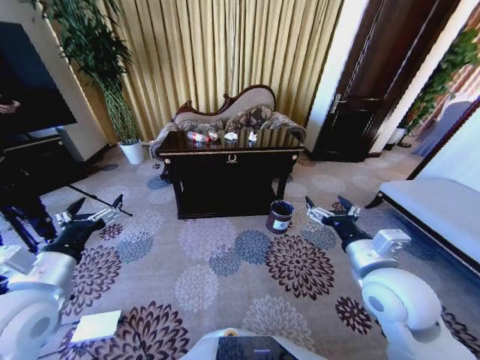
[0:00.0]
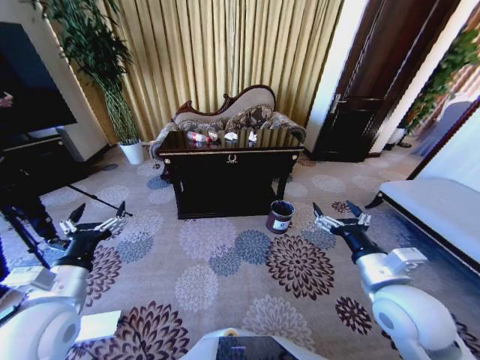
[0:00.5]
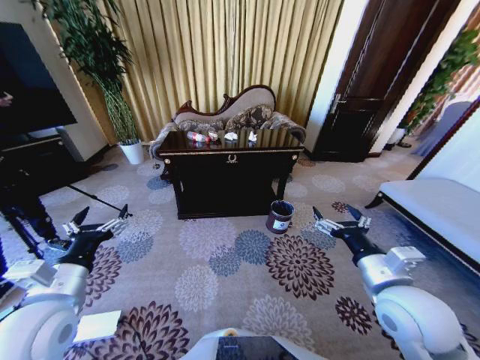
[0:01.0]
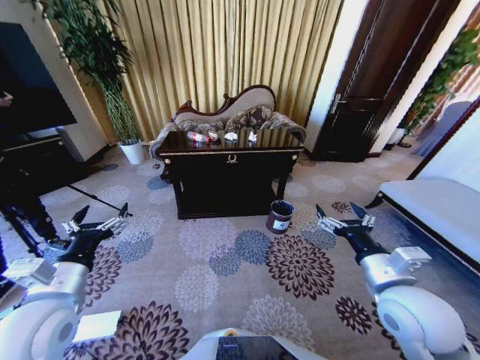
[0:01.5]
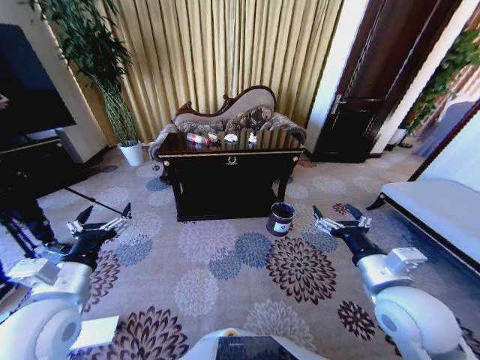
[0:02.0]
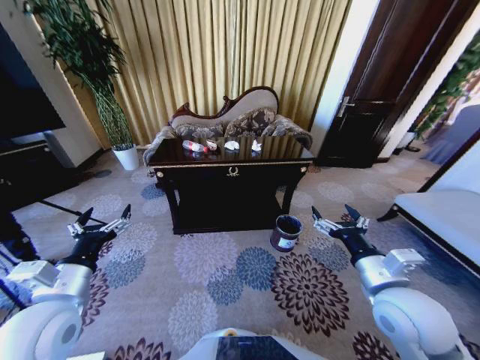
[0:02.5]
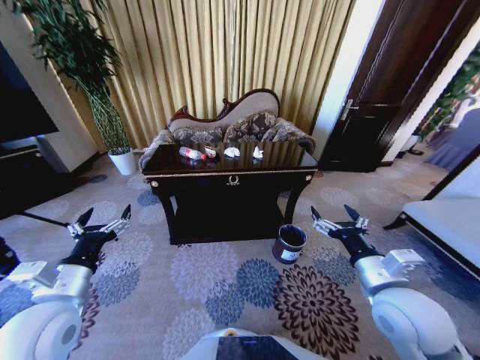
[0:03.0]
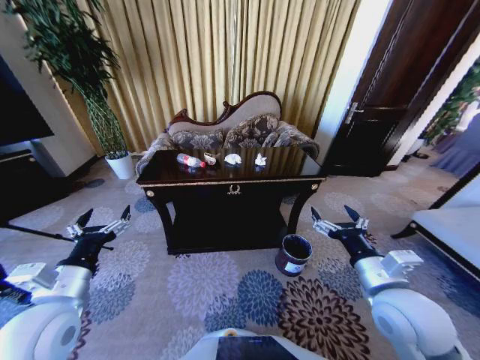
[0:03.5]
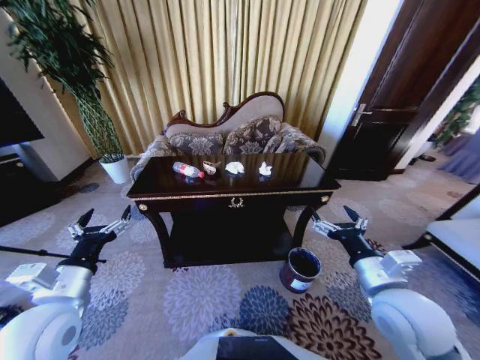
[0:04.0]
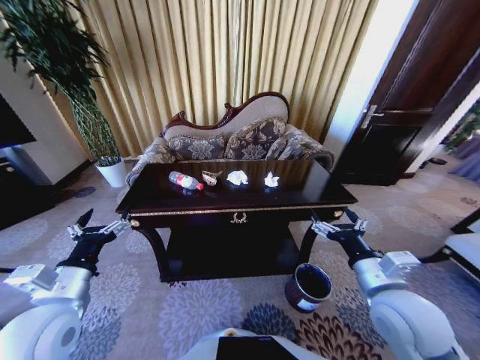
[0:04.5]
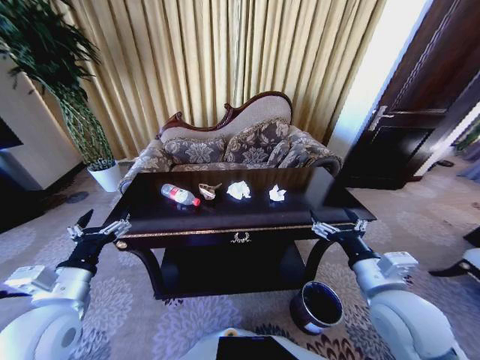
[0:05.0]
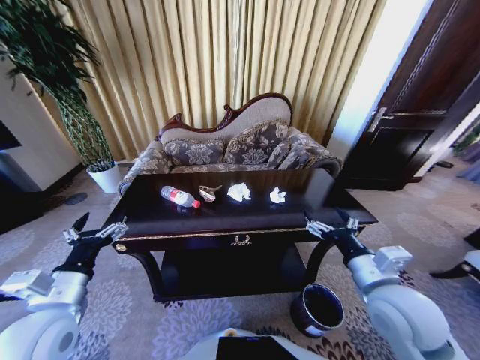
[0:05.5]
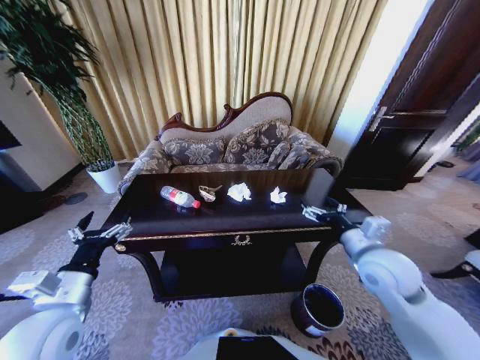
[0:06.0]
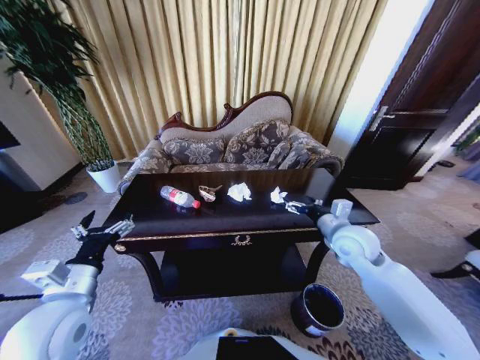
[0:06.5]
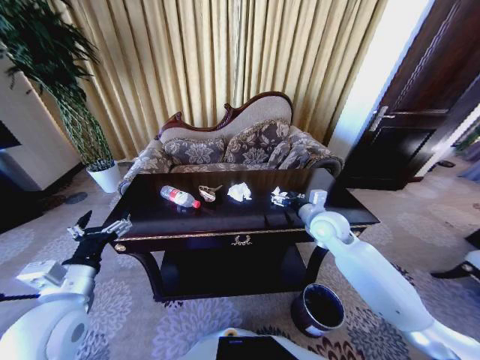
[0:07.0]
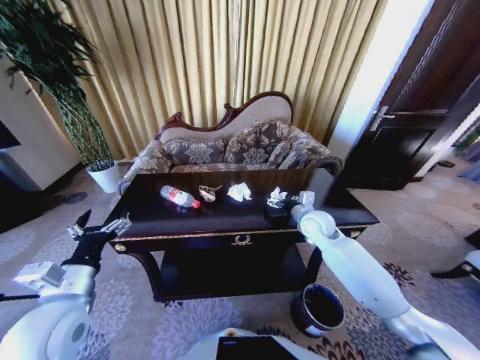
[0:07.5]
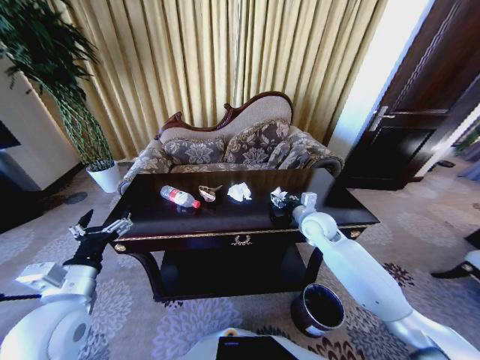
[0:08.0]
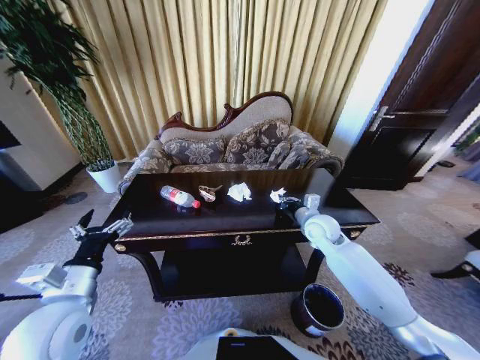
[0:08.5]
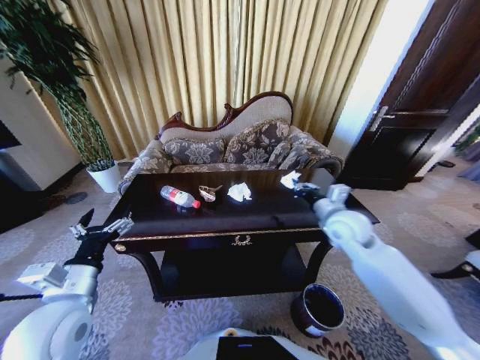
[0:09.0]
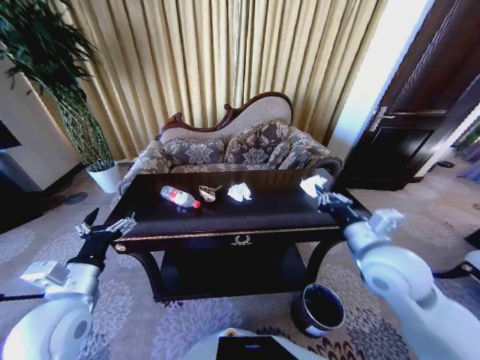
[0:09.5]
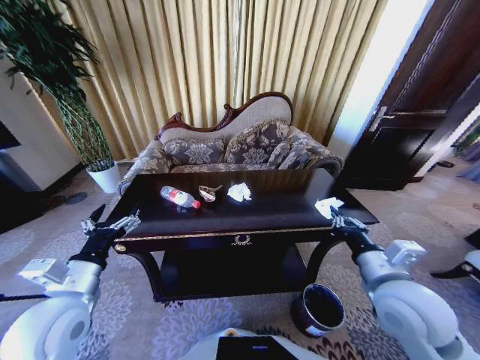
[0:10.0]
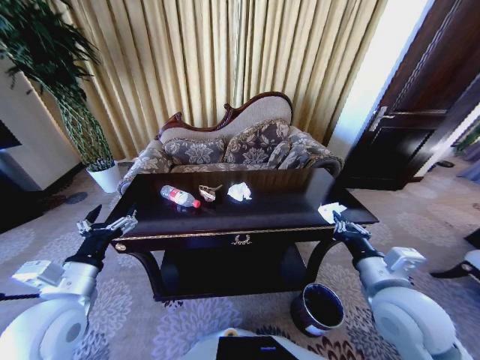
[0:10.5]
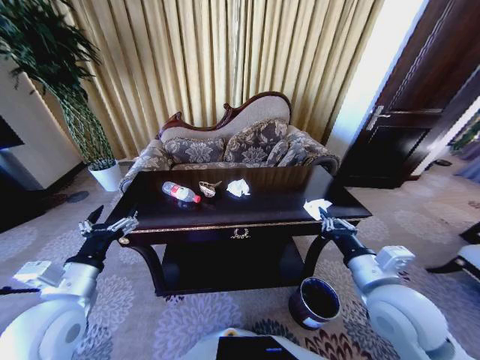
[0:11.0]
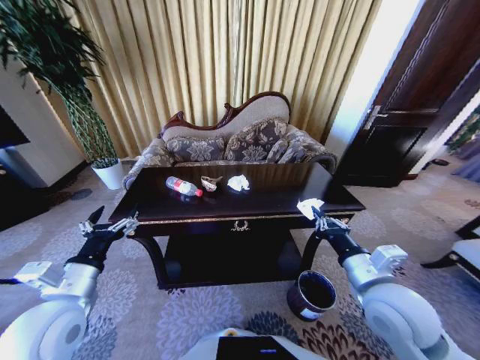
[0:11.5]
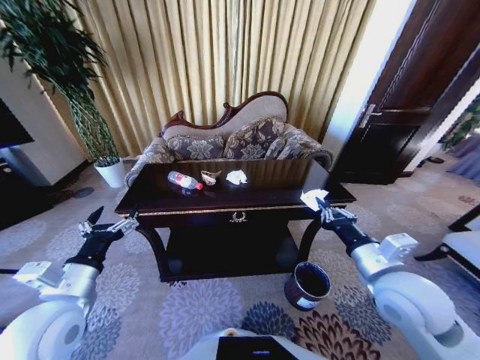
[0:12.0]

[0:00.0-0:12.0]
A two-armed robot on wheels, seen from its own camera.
Task of the whole recording: Move to the front of the table and place the trash on the table into the trash bin.
0:04.0 to 0:06.0: The right gripper goes roughly 10 cm forward.
0:06.0 to 0:08.0: The right gripper moves forward, roughly 15 cm, and closes its fingers.
0:08.0 to 0:10.0: The right gripper travels backward by approximately 25 cm, and closes up.

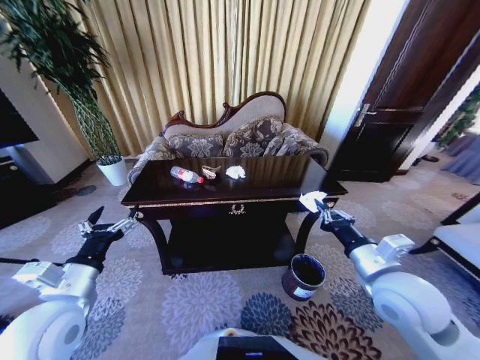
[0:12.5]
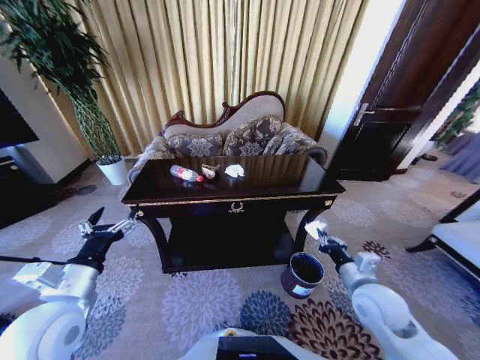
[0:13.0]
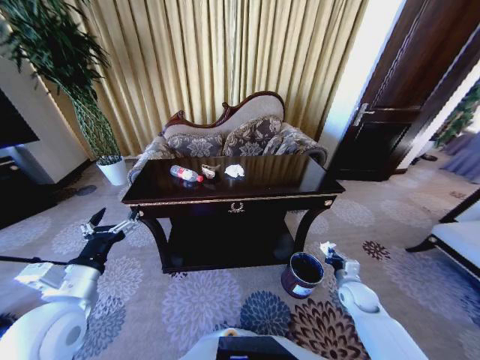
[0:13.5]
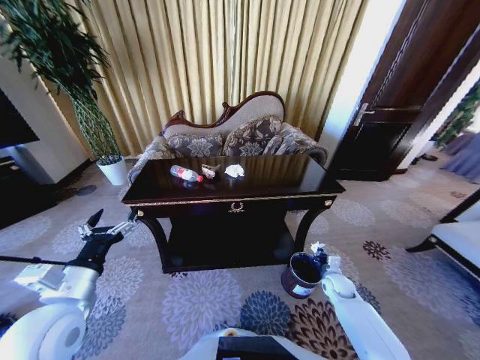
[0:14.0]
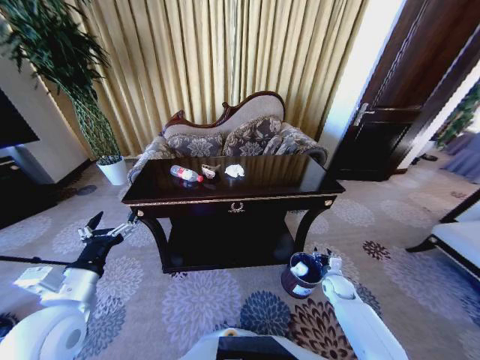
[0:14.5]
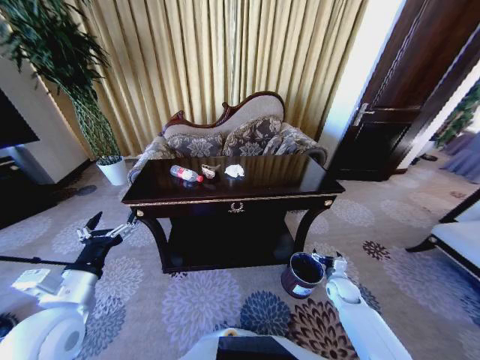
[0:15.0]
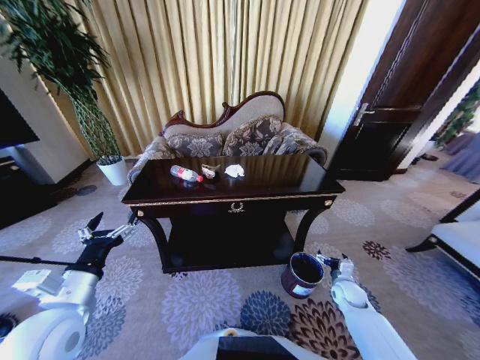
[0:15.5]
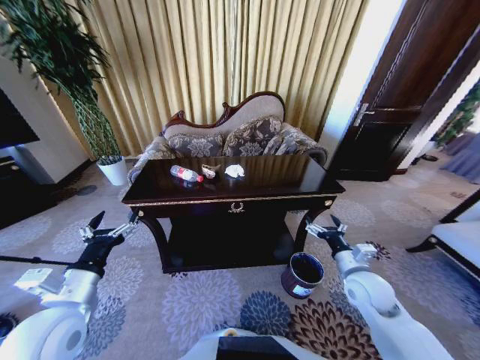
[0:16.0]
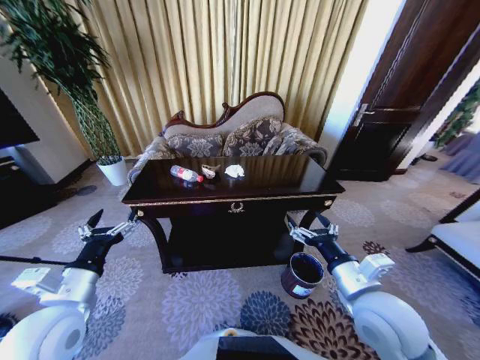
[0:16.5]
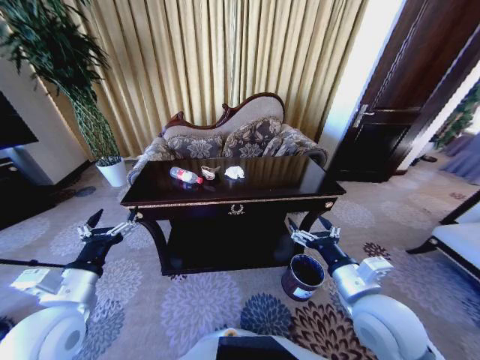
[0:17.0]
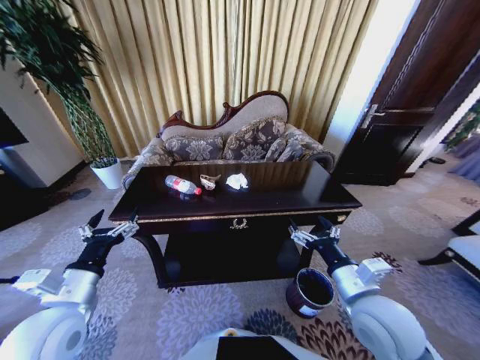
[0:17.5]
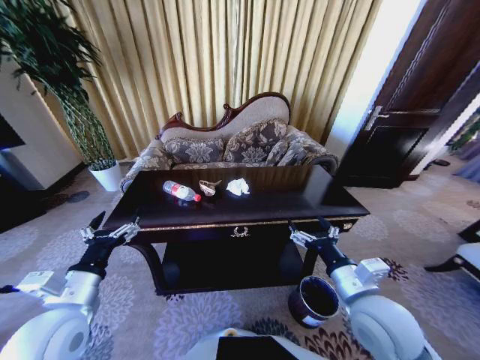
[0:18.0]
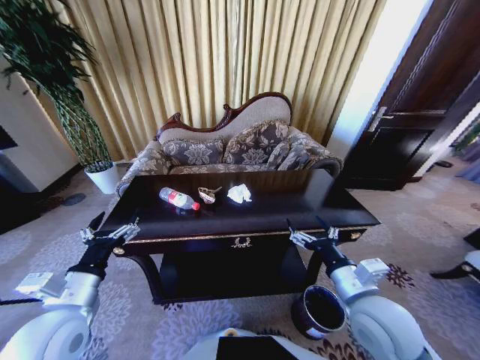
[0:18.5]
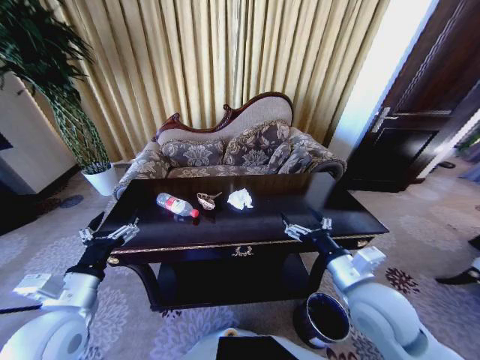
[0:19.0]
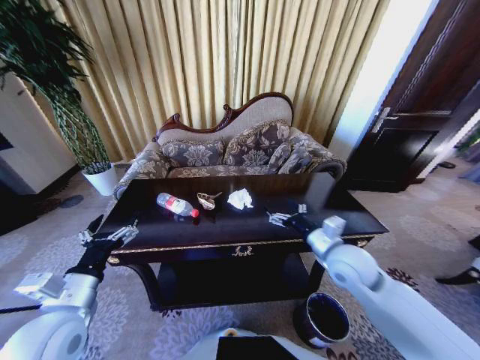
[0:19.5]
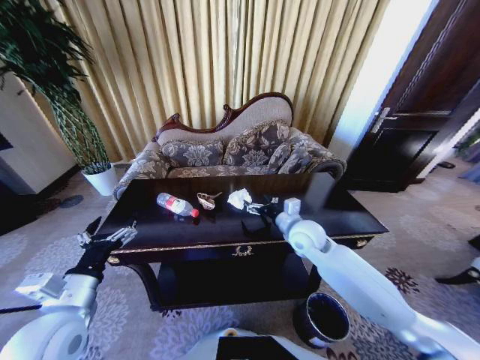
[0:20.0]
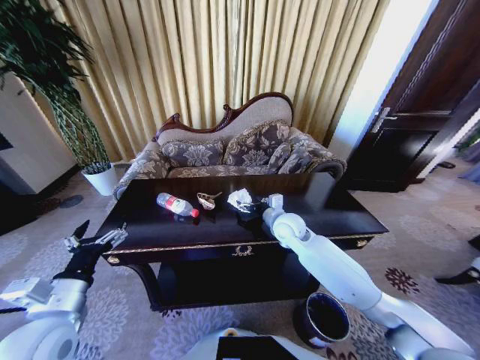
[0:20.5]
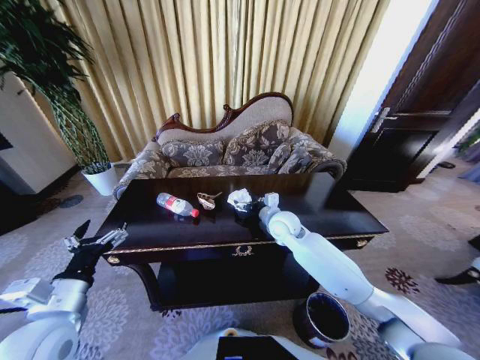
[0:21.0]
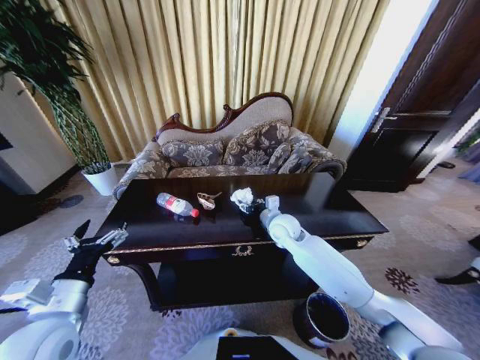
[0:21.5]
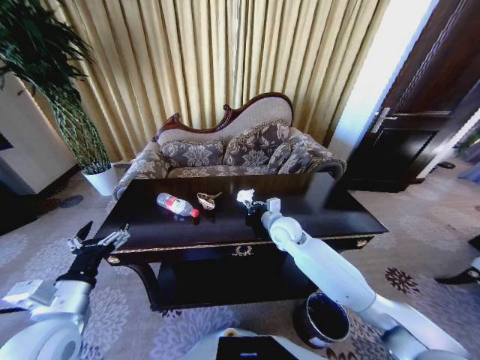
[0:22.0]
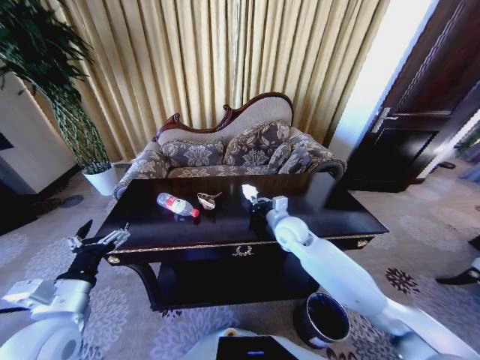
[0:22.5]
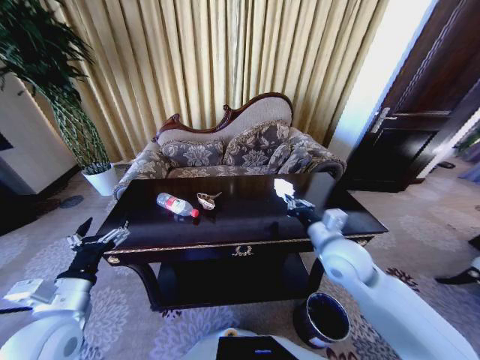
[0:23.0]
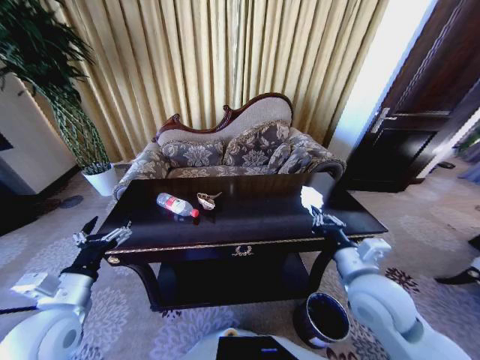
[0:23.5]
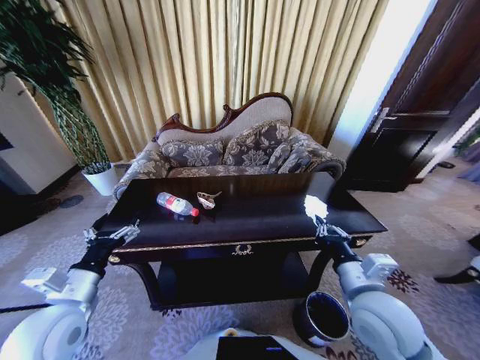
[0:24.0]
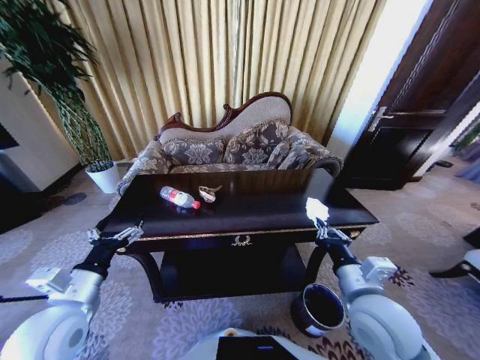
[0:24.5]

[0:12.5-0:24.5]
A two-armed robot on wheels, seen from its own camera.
Task of the whole recording: Move to the front of the table and place the trash on the table into the trash bin.
0:12.5 to 0:14.5: The right gripper moves downward, about 30 cm, and opens.
0:14.5 to 0:16.5: The right gripper heads upward, backward and to the left, covering some 35 cm, and opens its fingers.
0:18.5 to 0:20.5: The right gripper moves forward, about 25 cm.
0:20.5 to 0:22.5: The right gripper closes up.
0:22.5 to 0:24.5: The right gripper moves backward, about 25 cm.

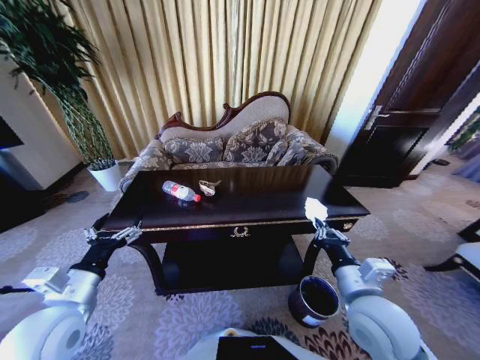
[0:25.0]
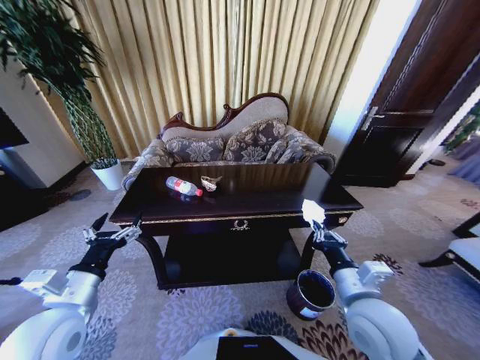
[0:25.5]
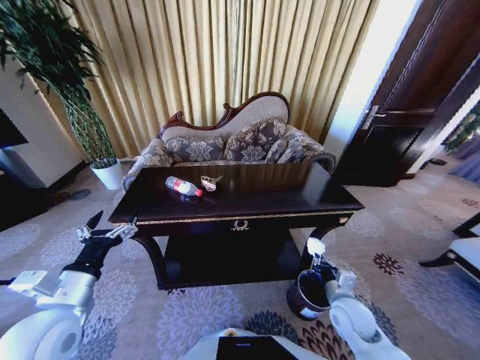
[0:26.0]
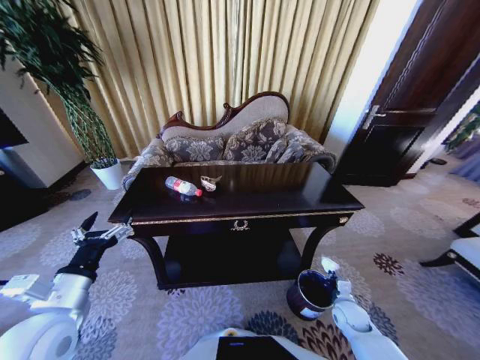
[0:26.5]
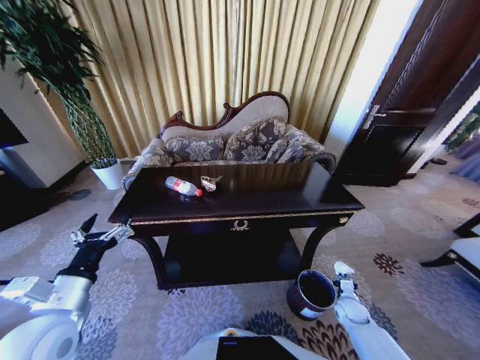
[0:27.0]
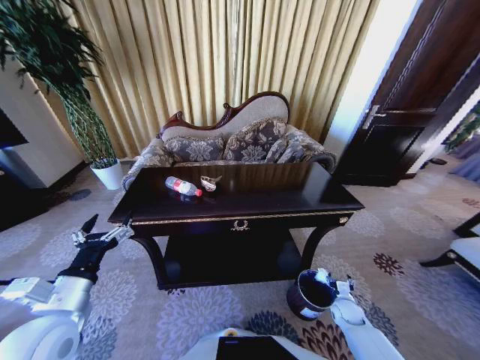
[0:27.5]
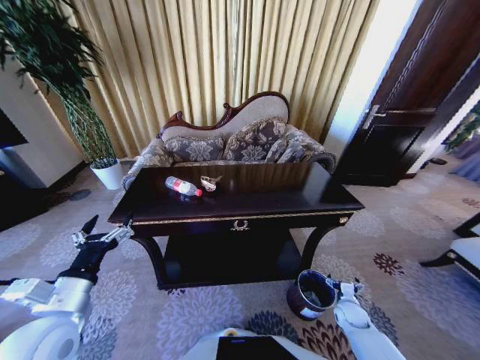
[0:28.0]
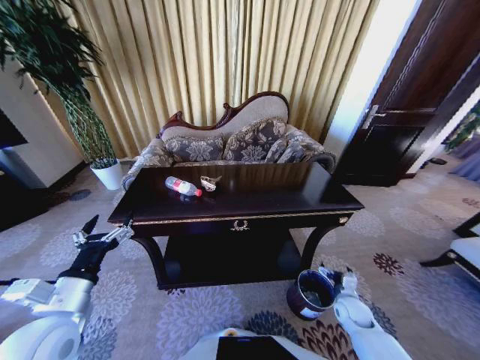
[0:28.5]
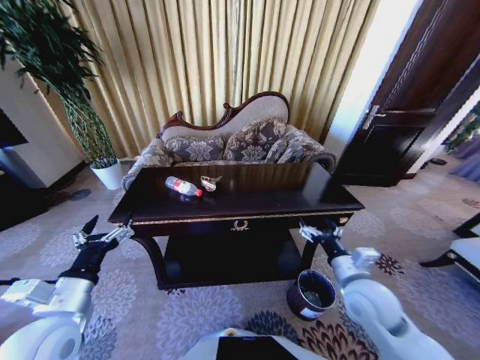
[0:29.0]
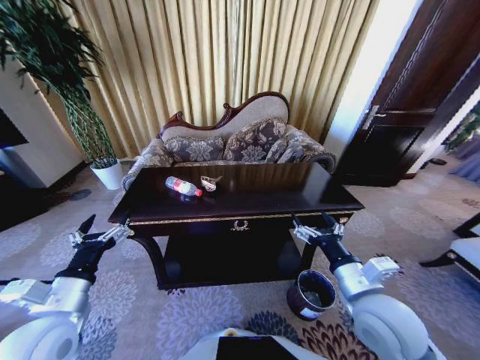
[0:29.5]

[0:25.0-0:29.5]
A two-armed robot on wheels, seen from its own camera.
Task of the whole recording: Move to the front of the table and place the trash on the table into the trash bin.
0:25.0 to 0:27.0: The right gripper moves downward and to the right, approximately 35 cm.
0:27.0 to 0:29.5: The right gripper goes approximately 40 cm upward and to the left, and opens its fingers.
